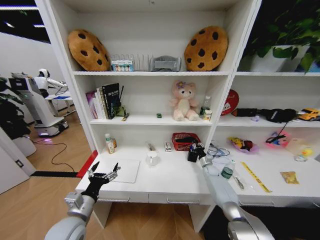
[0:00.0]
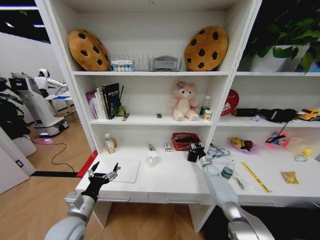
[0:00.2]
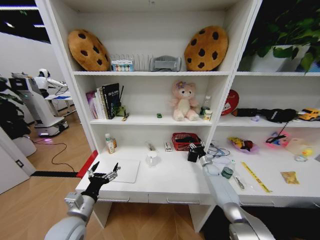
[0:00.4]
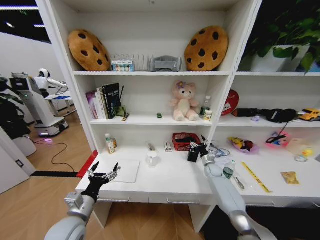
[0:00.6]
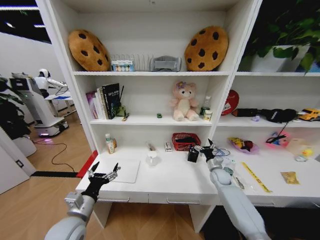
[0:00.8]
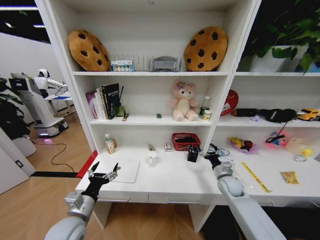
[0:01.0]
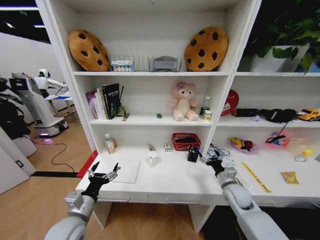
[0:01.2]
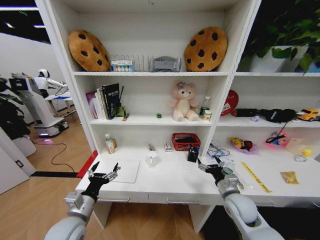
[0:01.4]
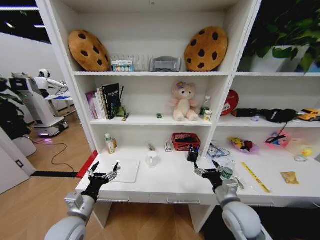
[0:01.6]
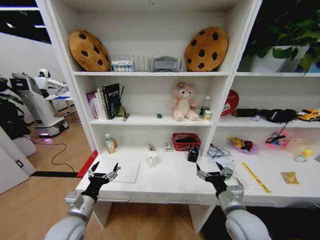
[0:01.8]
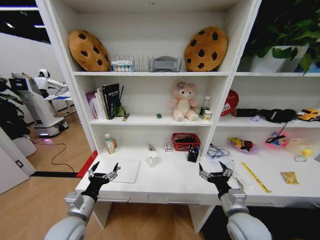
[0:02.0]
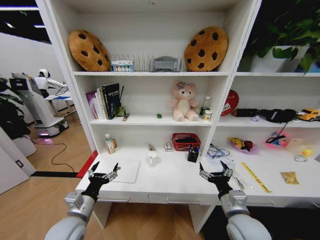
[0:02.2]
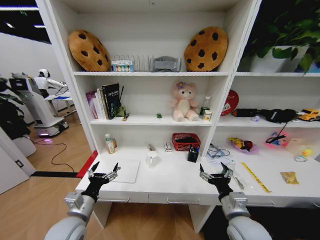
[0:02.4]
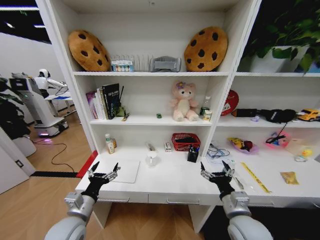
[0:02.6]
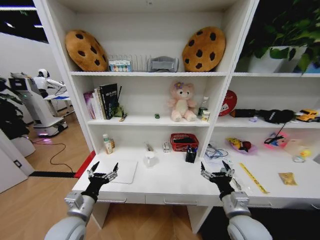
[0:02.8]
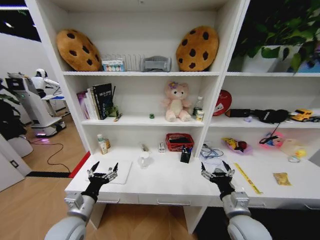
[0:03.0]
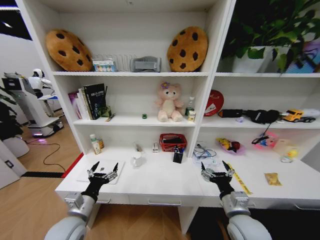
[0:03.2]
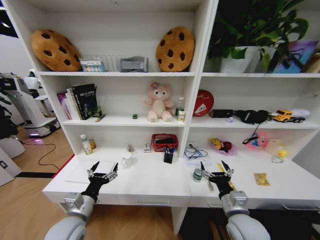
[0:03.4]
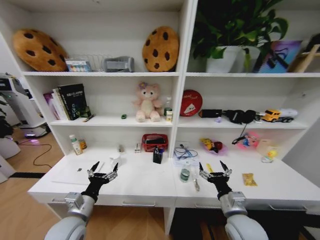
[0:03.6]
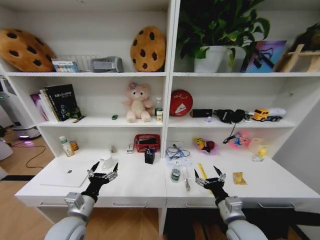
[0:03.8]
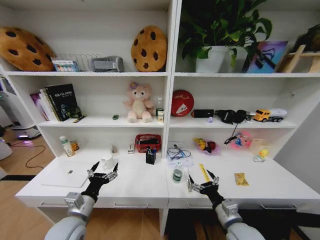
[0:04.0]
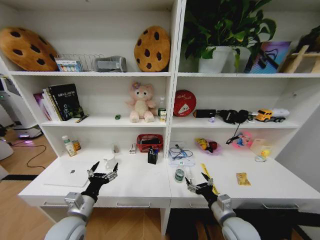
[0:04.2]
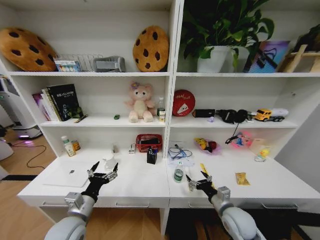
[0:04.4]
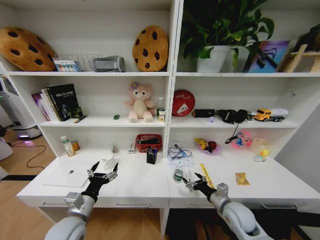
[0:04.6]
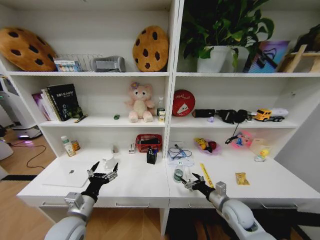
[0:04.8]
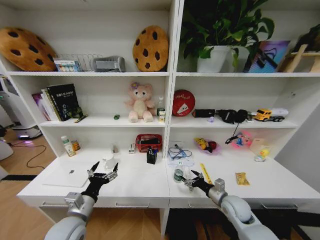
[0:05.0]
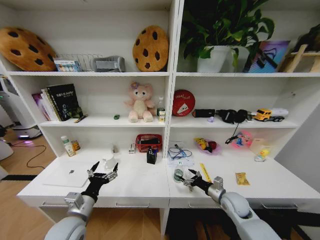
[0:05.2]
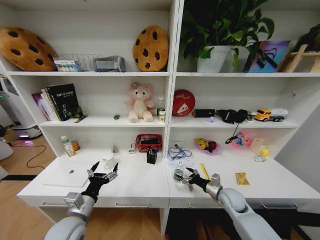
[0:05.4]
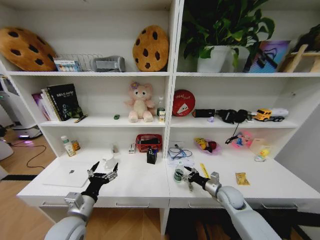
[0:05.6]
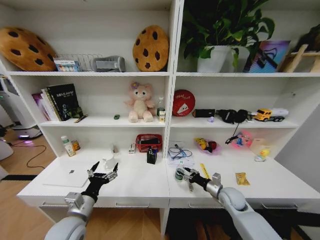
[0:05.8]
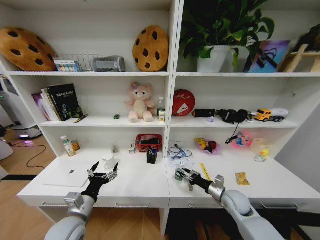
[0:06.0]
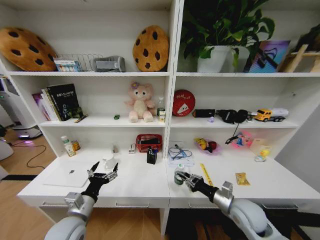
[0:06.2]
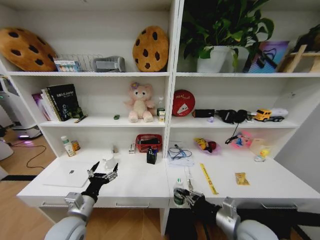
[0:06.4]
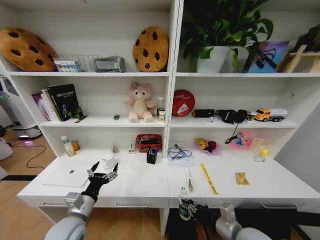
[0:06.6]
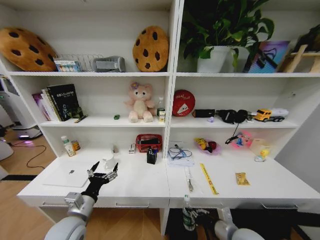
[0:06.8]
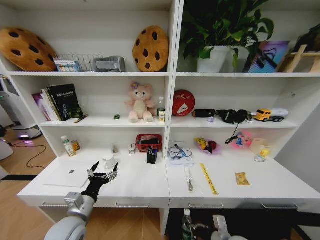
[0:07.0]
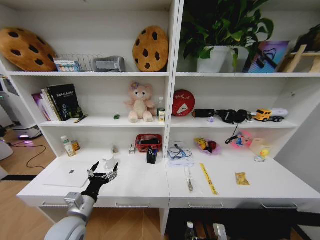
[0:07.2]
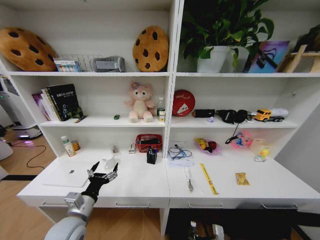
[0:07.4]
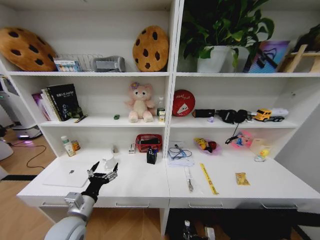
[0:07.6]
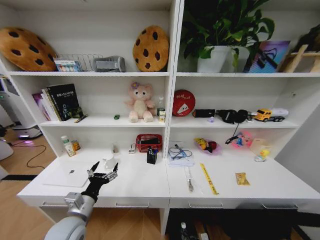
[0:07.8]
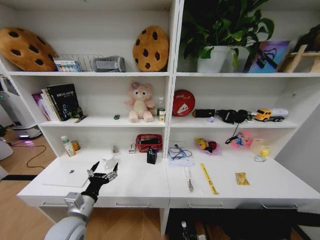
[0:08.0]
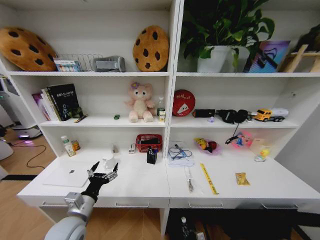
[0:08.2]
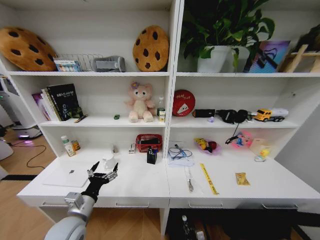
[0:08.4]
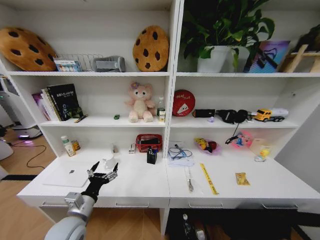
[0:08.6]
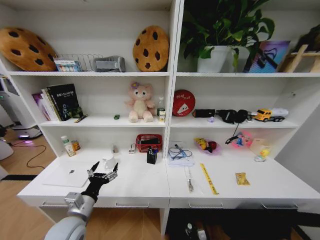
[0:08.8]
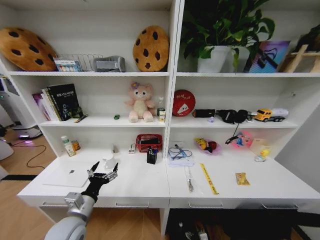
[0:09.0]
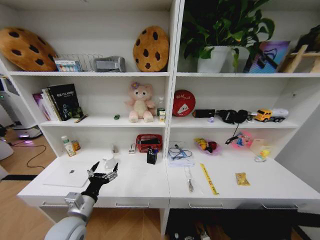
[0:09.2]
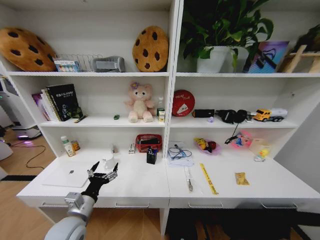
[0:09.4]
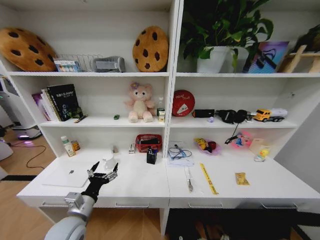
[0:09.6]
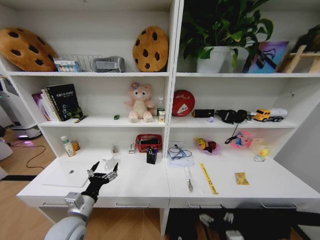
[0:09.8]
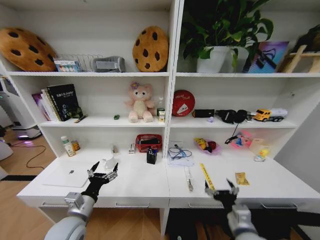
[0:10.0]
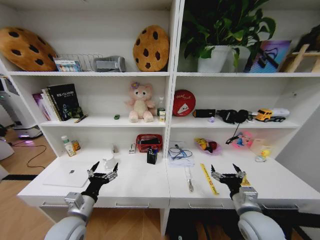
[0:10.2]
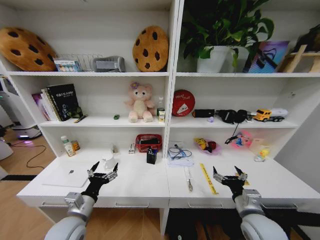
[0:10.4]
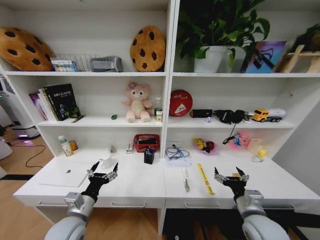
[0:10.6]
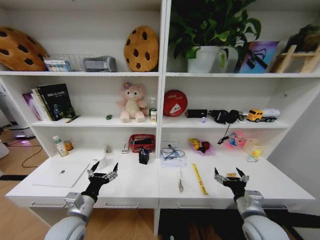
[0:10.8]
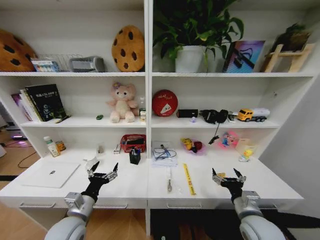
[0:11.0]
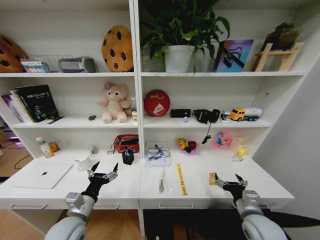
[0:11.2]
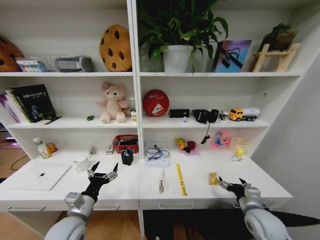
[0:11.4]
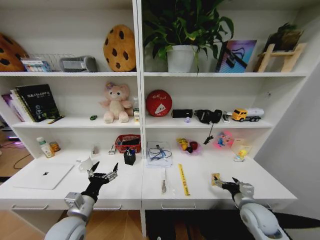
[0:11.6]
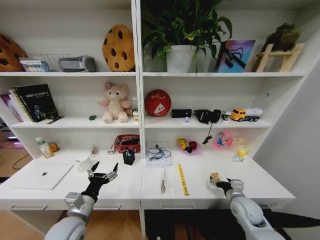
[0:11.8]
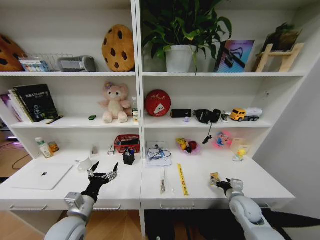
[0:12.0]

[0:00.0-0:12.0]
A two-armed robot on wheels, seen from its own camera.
Task of the whole recording: Organize the objects on the table.
0:00.0 to 0:01.6: The right gripper moves backward and upward, roughly 35 cm, and opens.
0:03.0 to 0:04.4: The right gripper is displaced downward by approximately 5 cm.
0:04.4 to 0:06.0: The right gripper heads forward and to the right, covering about 10 cm, and closes up.
0:06.0 to 0:07.6: The right gripper is displaced downward and backward by roughly 25 cm.
0:09.0 to 0:10.4: The right gripper goes some 40 cm upward.
0:10.4 to 0:12.0: The right gripper heads forward and downward, covering some 10 cm.

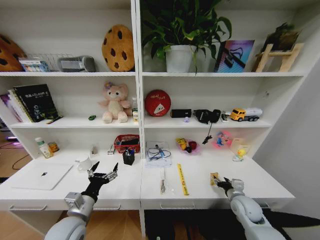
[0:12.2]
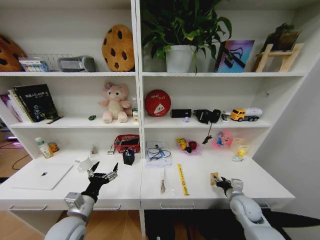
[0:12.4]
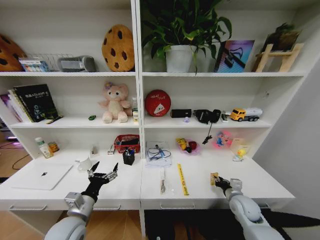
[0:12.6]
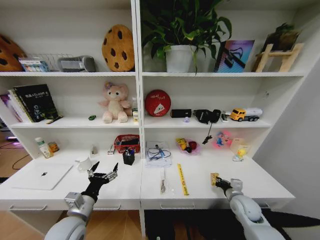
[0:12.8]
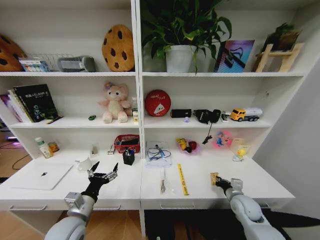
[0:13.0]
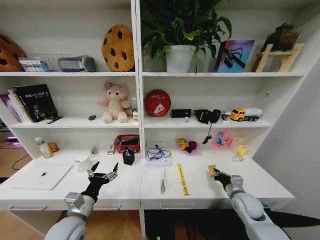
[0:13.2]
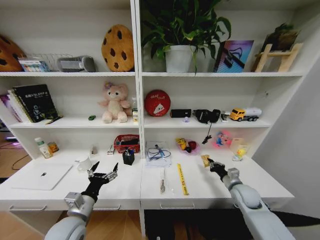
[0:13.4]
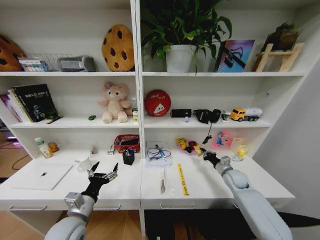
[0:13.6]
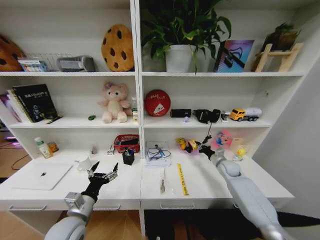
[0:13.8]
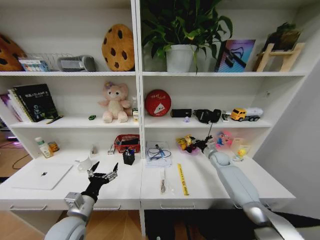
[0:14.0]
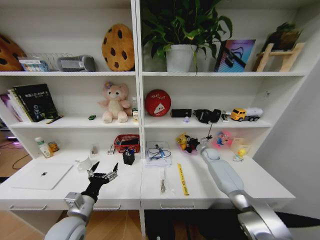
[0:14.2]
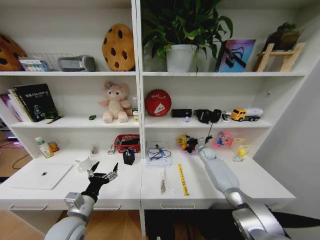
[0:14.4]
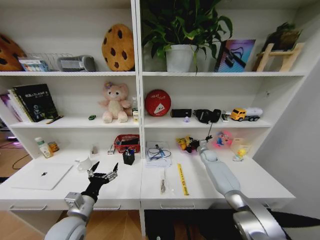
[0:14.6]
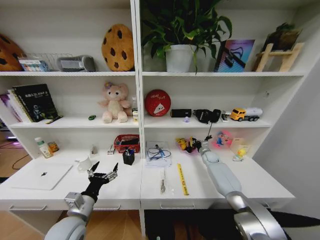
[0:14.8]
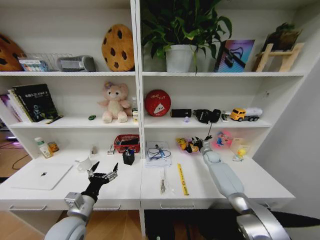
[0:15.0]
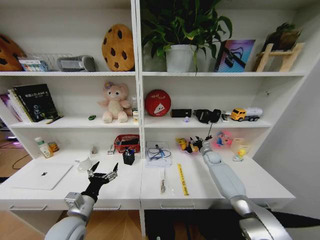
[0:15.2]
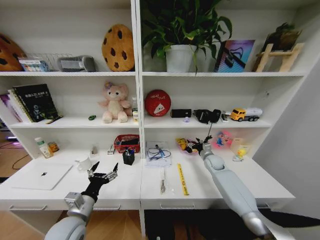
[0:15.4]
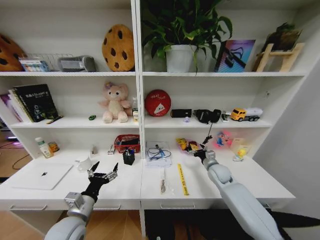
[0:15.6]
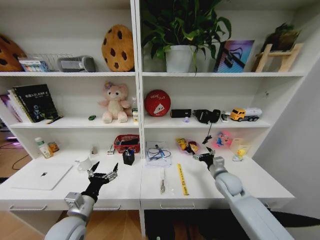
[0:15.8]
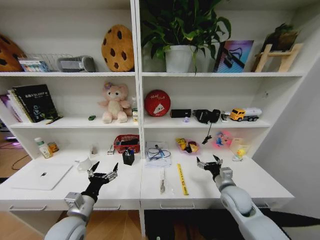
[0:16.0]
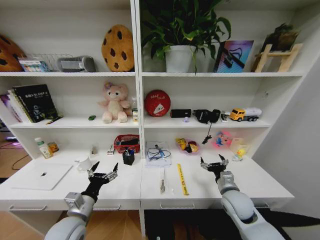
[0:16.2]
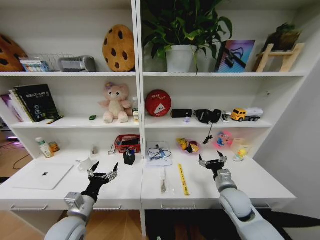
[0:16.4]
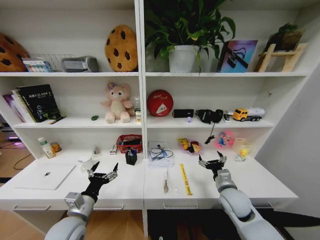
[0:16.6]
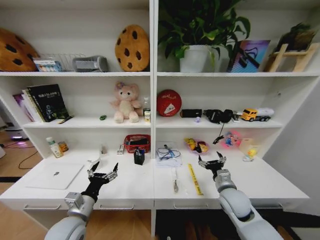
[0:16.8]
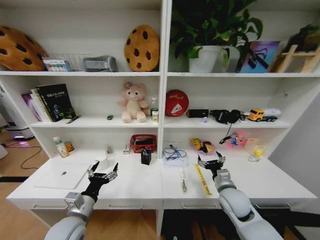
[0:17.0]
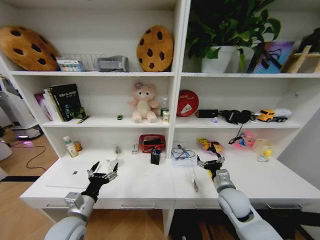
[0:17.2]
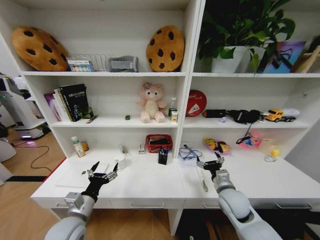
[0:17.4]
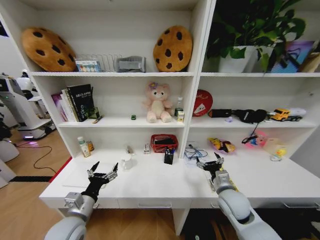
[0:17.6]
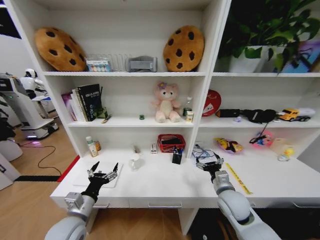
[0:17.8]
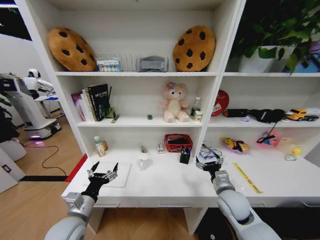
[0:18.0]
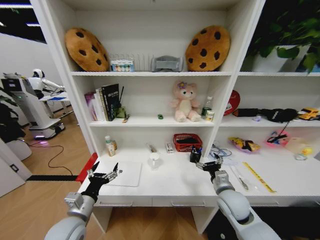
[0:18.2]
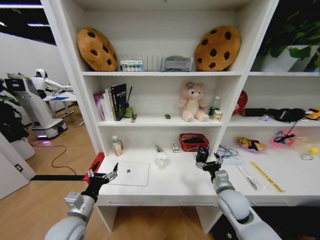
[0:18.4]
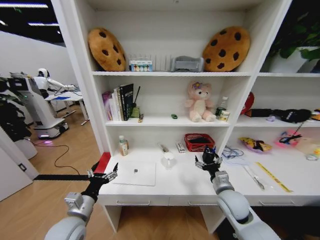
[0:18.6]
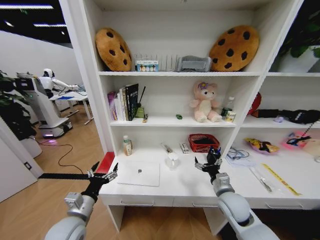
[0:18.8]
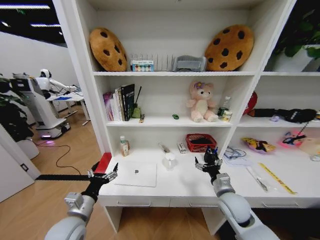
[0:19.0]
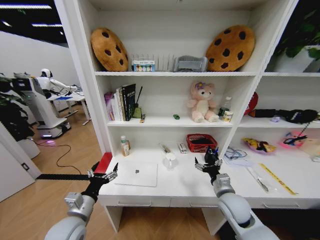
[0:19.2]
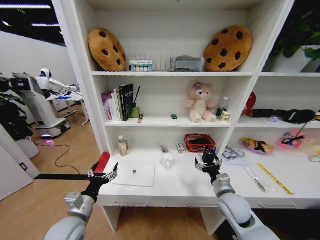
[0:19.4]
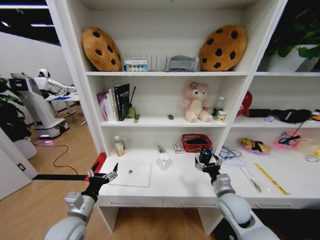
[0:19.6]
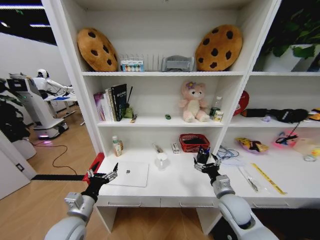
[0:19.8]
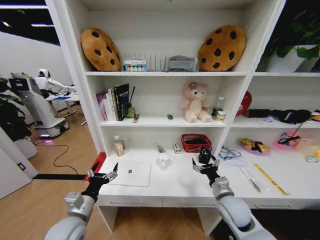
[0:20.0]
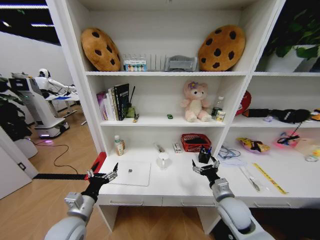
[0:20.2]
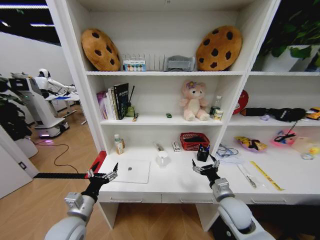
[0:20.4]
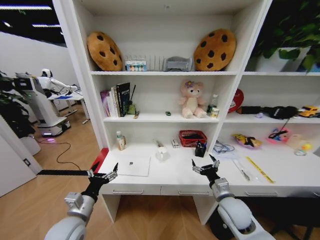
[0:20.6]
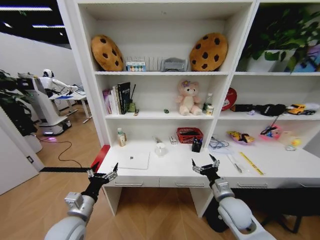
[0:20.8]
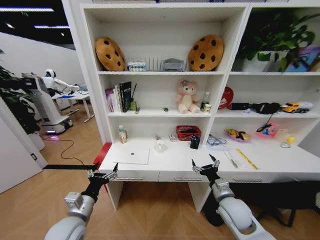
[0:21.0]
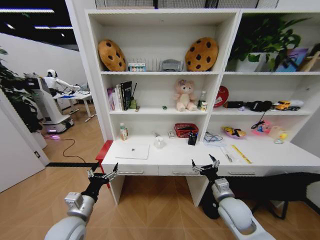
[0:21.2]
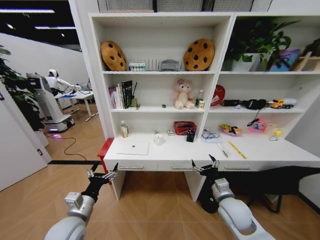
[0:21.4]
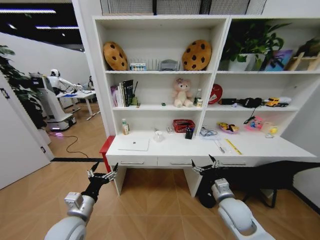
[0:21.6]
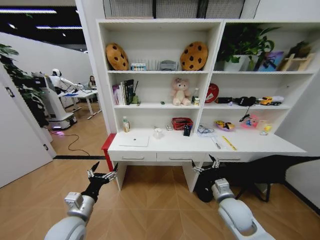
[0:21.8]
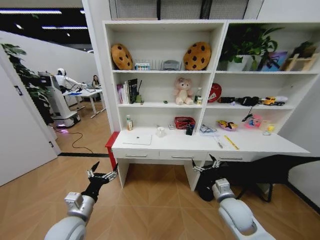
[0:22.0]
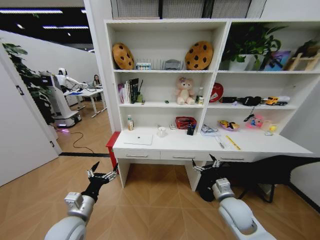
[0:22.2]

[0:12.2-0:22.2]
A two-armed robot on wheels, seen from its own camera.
Task of the whole recording: Organize the objects on the table.
0:12.2 to 0:13.6: The right gripper travels forward by approximately 10 cm, and closes up.
0:13.6 to 0:15.0: The right gripper moves forward, some 20 cm.
0:15.0 to 0:16.4: The right gripper moves backward, about 30 cm, and opens its fingers.
